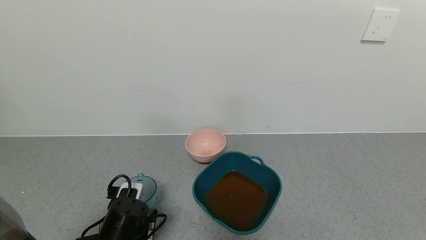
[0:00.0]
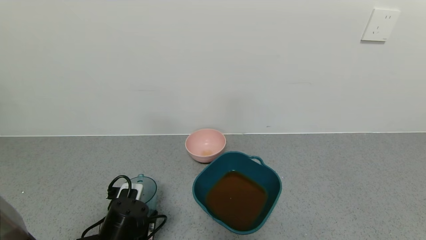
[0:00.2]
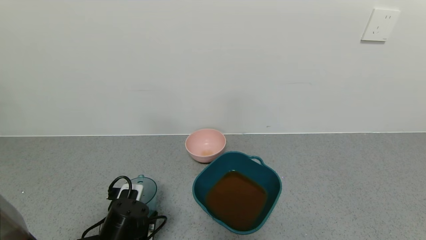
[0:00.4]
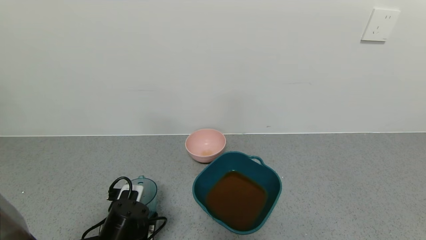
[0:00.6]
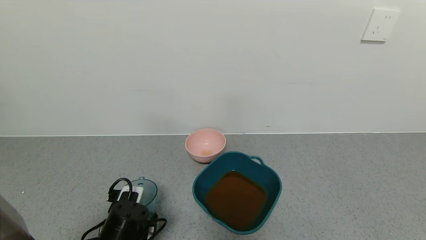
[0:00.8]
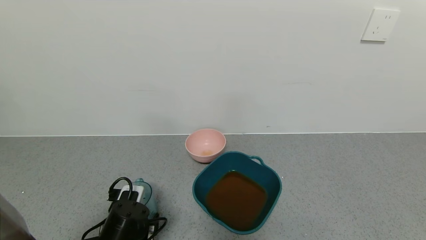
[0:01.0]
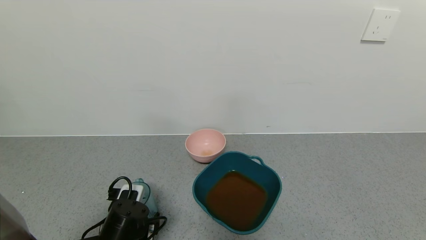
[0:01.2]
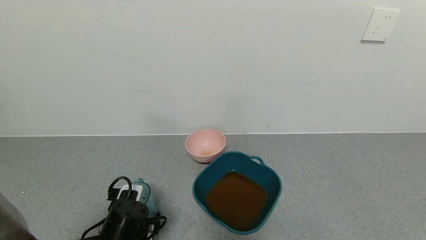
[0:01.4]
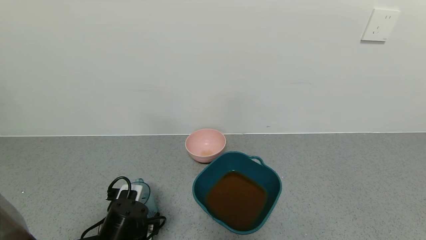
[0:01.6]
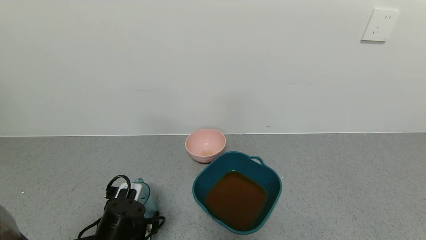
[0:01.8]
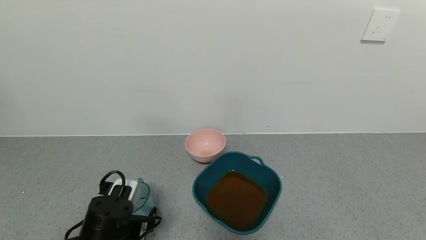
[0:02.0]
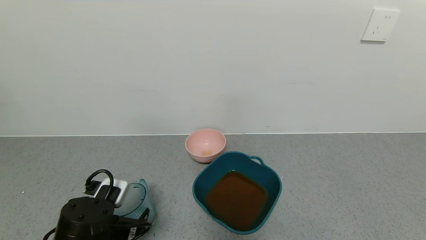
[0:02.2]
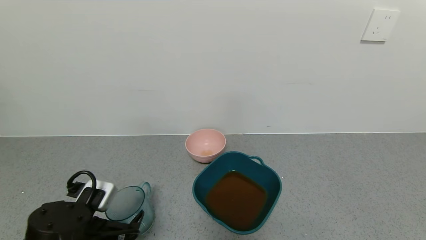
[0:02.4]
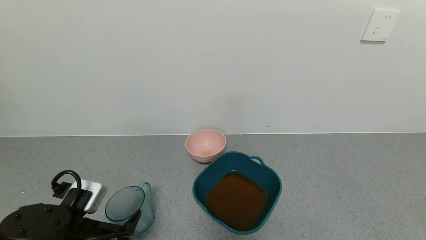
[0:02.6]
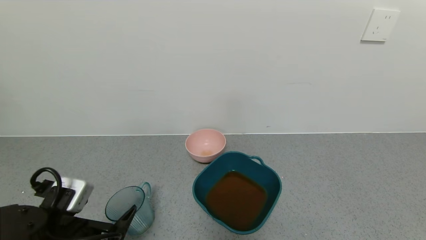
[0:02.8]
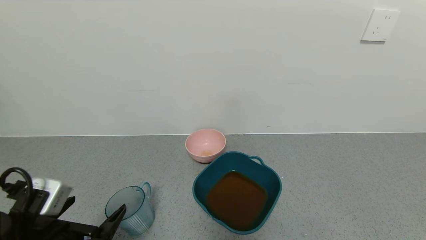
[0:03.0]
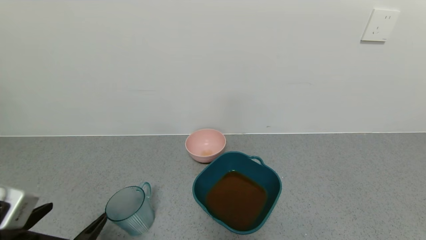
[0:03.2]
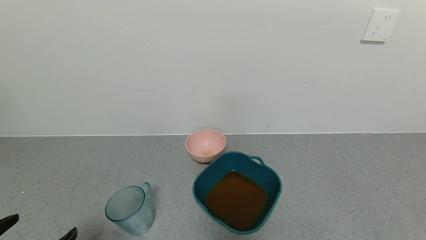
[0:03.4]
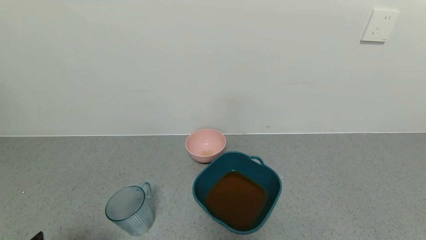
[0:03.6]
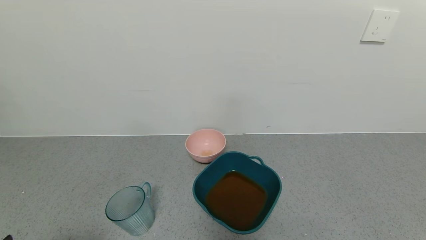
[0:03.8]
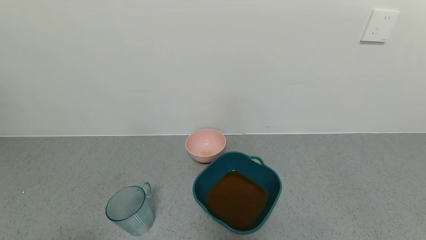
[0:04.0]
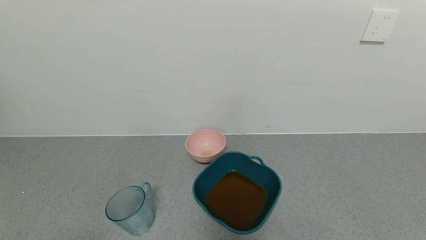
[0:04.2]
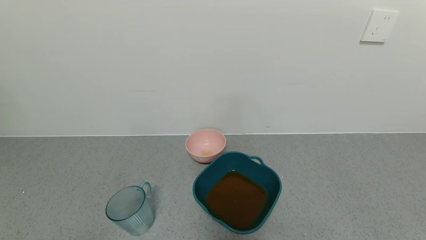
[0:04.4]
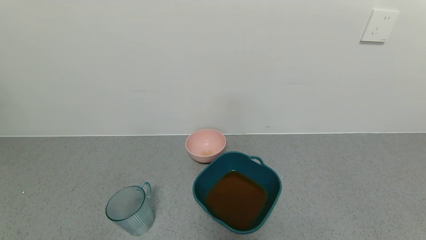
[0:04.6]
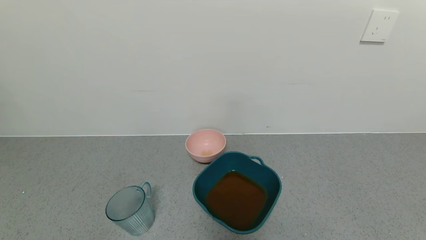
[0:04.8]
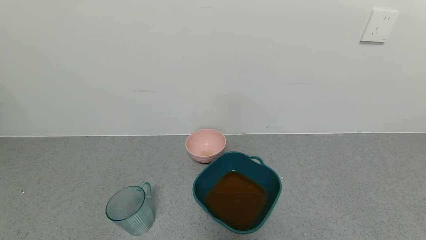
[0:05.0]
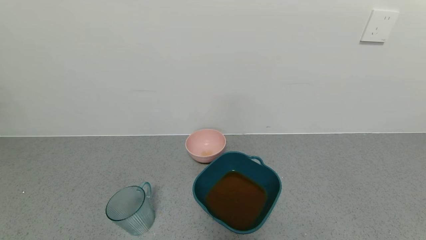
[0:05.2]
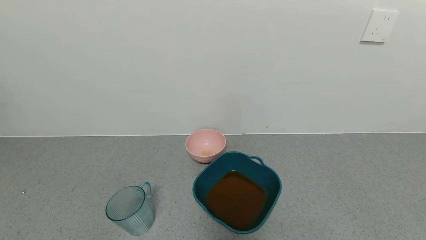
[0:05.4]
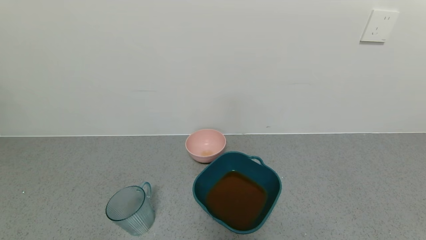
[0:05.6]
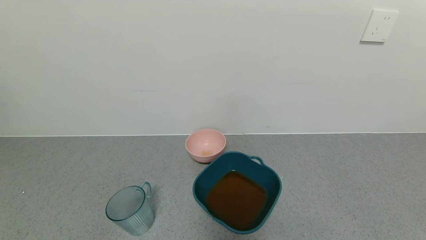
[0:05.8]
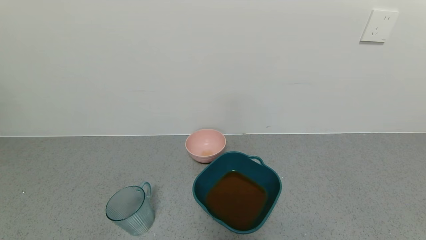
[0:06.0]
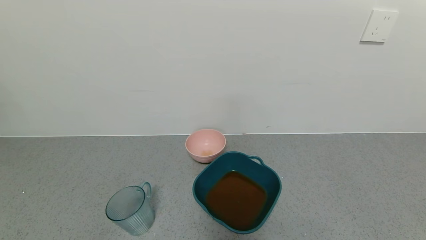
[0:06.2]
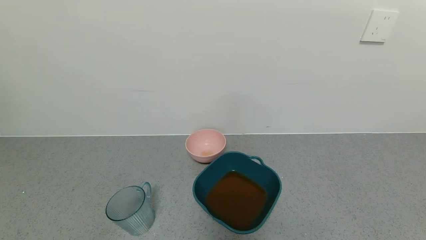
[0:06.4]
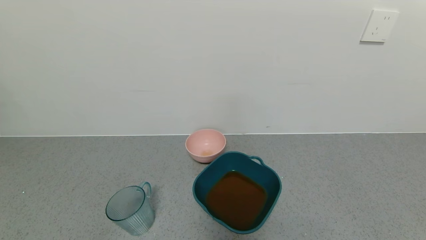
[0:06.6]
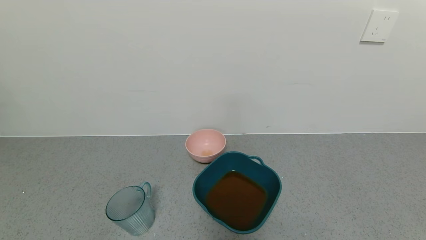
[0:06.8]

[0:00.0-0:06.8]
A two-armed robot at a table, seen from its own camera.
Task of the whole recording: use a gripper to pick up the cup and pour the liquid into a bowl or tray.
Step, 0:00.0 to 0:02.6: Place the glass cup with the left gripper.
0:00.0 to 0:01.4: The left gripper opens its fingers.
0:01.4 to 0:02.8: The left gripper goes about 10 cm upward and backward.
0:02.8 to 0:04.0: The left gripper moves backward and to the left, approximately 15 cm.
